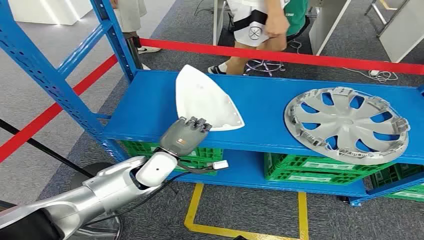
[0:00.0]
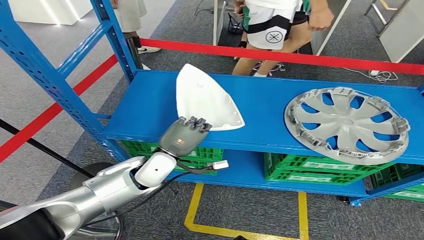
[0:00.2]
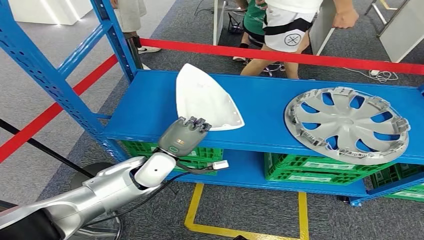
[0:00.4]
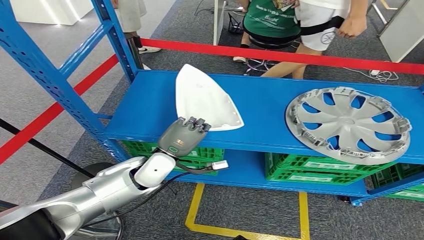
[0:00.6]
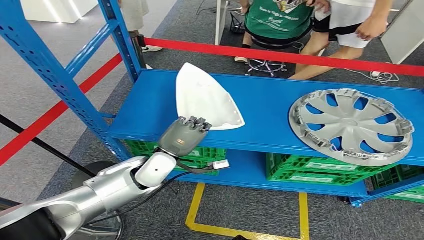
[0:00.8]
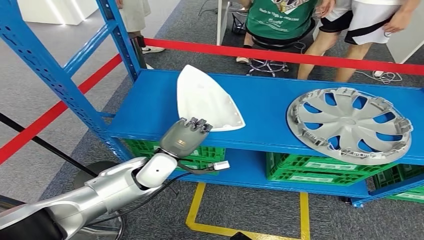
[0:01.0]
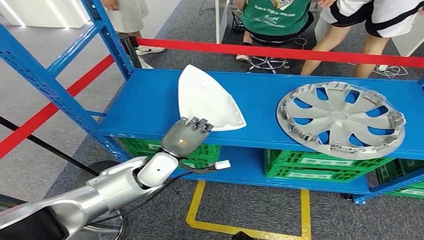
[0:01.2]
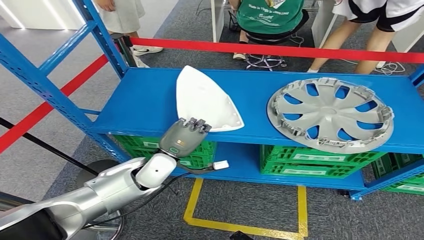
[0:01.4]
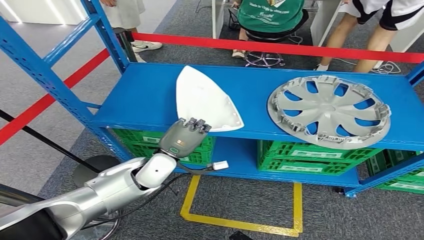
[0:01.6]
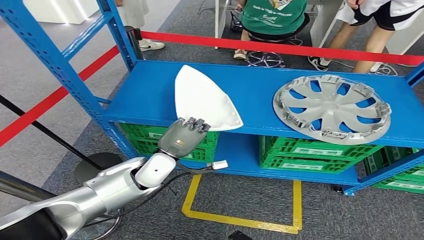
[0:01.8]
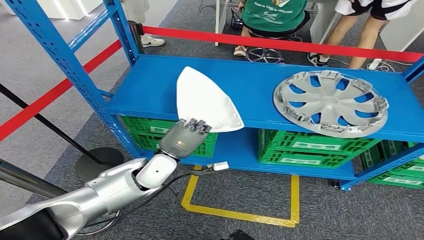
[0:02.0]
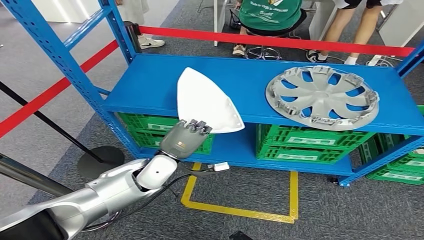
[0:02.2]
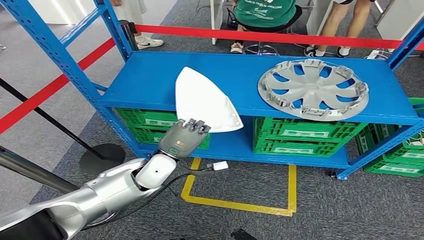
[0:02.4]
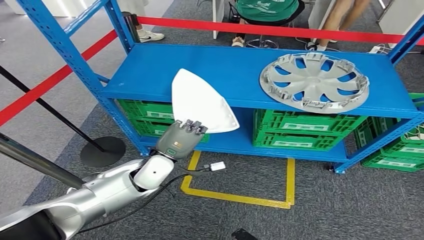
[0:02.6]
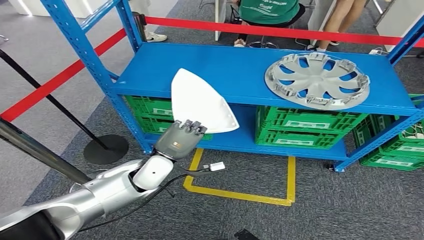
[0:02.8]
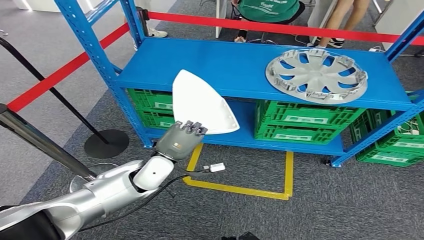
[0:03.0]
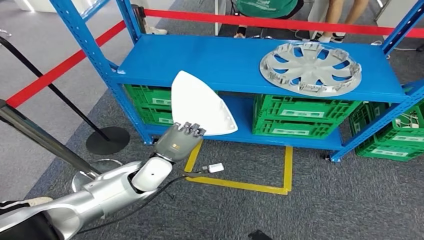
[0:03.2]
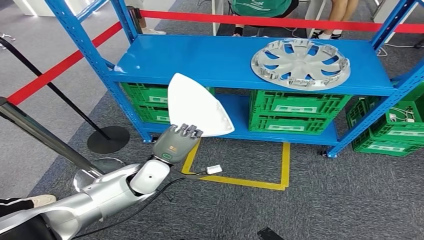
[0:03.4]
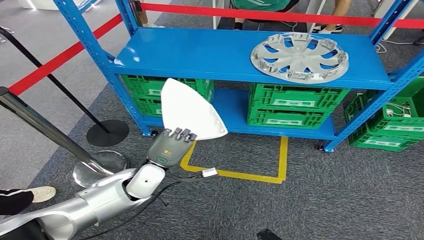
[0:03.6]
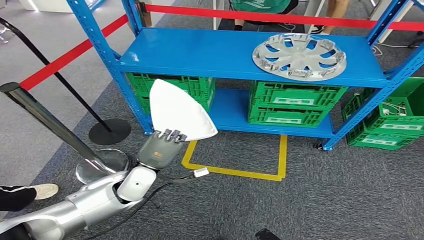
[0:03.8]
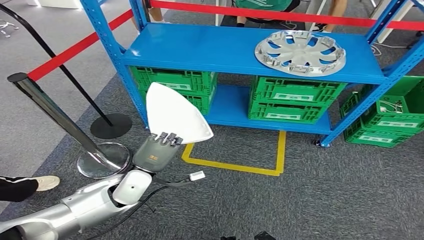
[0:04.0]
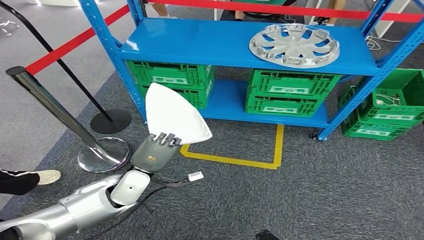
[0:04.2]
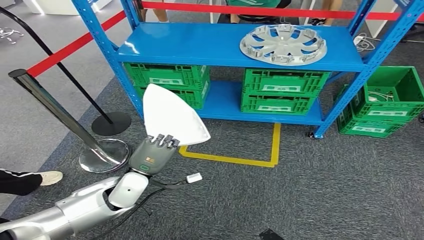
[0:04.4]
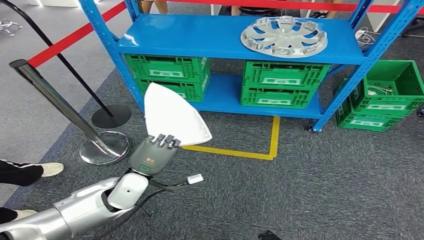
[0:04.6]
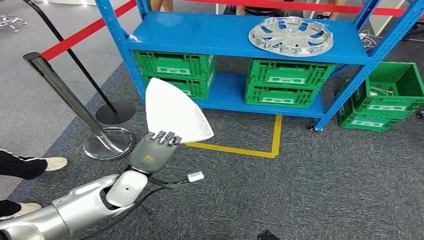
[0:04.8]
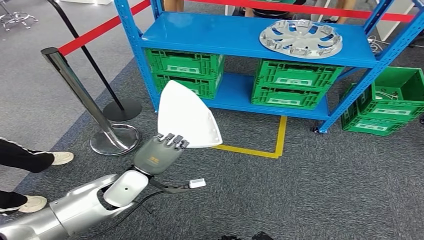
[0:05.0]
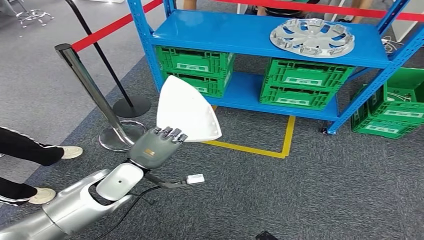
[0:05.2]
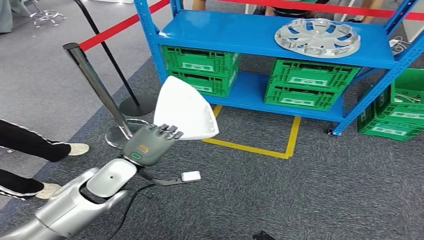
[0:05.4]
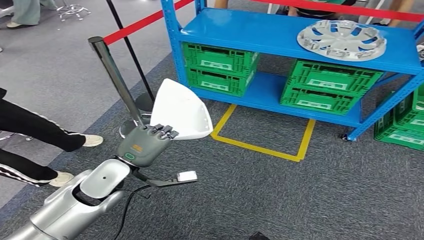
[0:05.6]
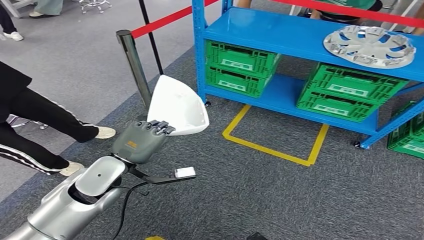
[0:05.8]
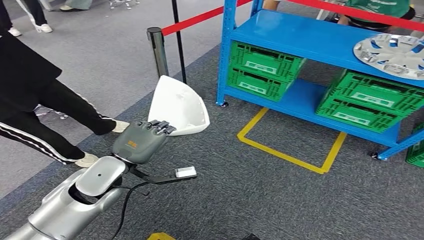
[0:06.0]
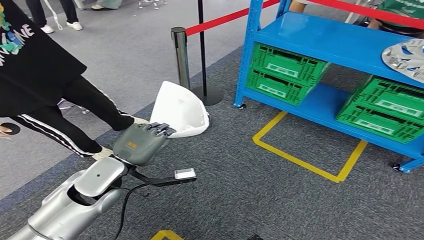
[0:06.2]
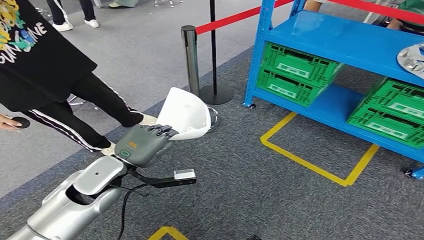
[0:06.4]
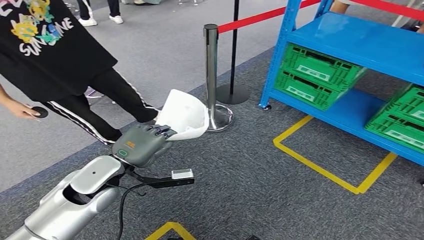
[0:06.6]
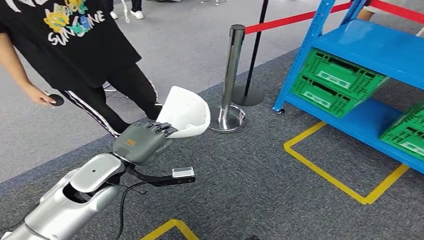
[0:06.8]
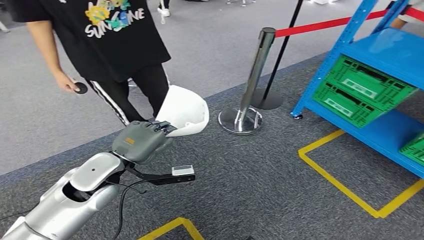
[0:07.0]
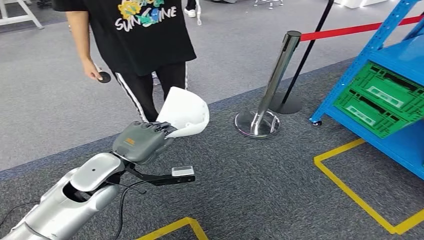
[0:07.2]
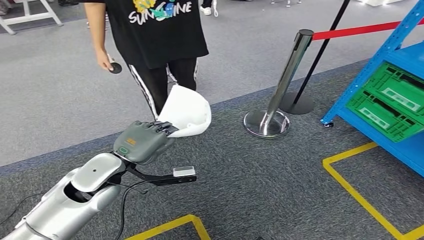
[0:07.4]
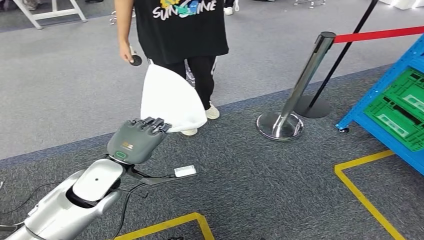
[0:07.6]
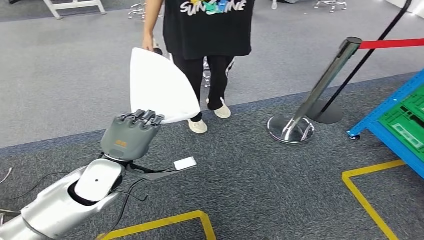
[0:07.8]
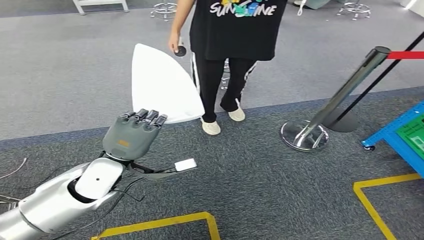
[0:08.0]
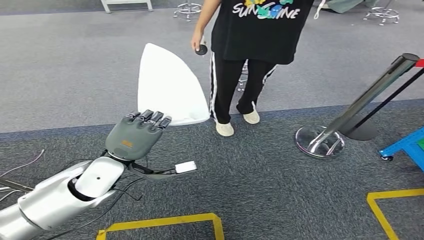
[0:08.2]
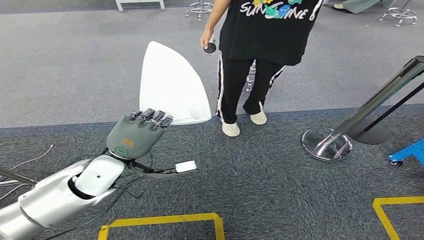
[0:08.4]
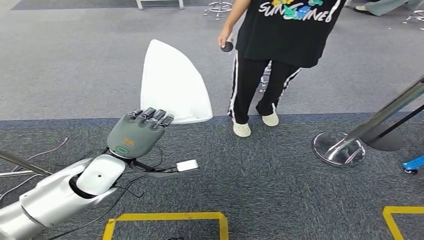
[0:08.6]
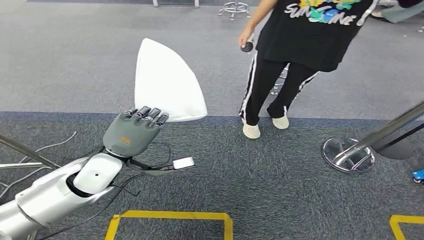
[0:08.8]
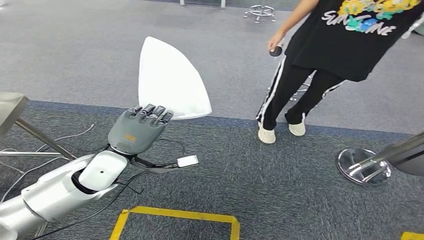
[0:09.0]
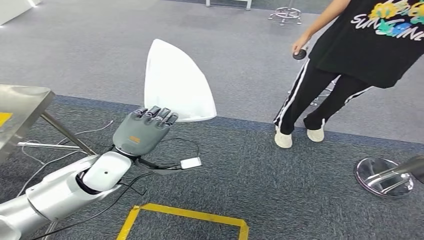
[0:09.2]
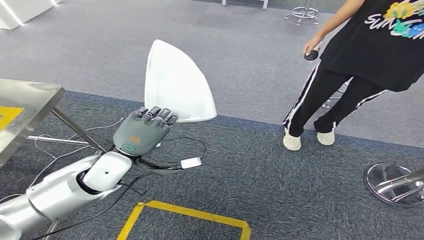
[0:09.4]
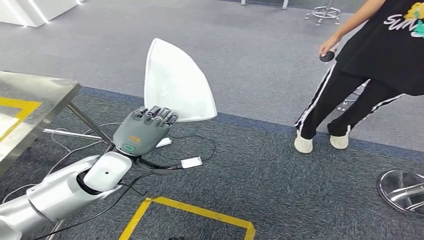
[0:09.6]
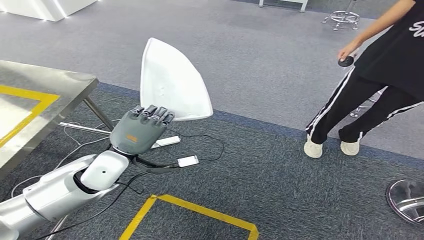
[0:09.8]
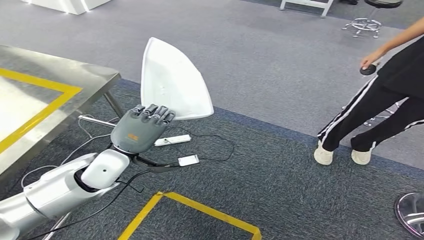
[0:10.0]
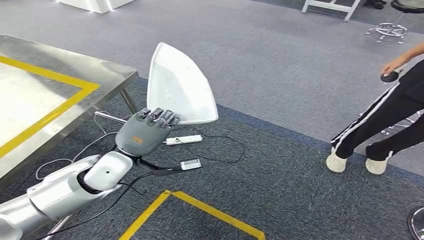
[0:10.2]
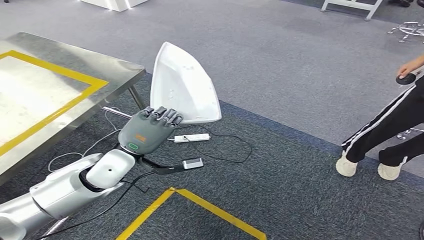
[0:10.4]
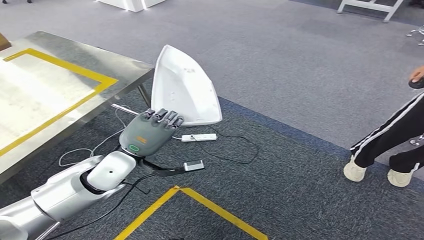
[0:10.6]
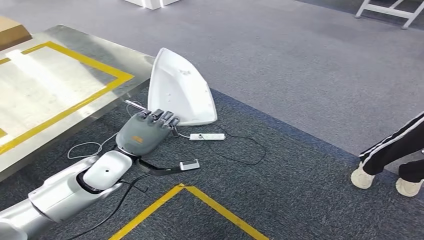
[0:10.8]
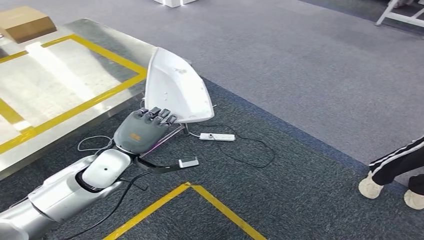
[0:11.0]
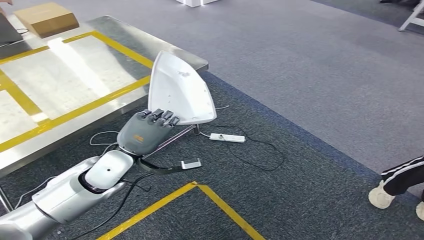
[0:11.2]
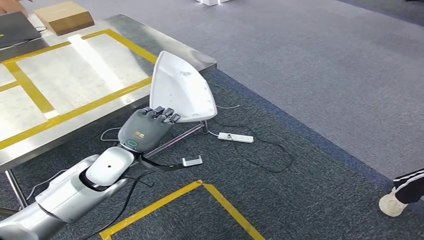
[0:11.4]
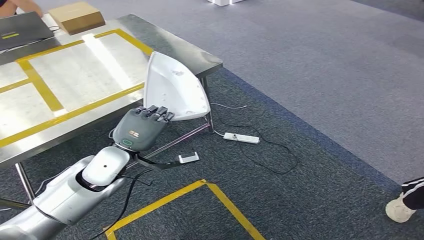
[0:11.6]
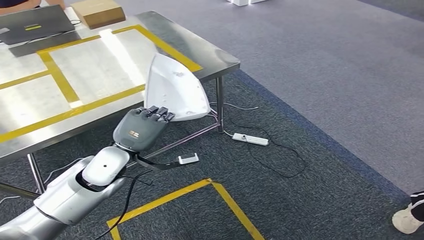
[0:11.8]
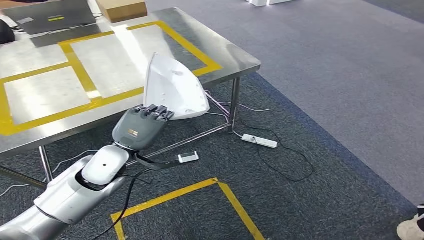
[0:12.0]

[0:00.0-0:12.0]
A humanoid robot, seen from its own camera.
Step, 0:00.0 to 0:02.8: Pick up the small component from the shelf.

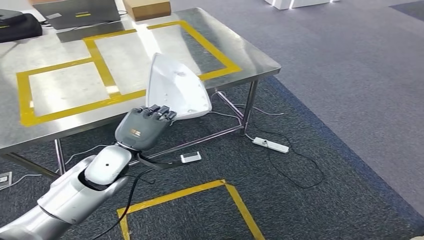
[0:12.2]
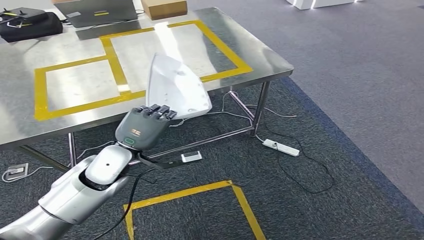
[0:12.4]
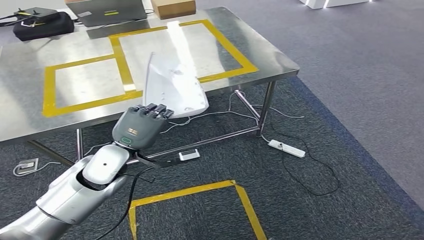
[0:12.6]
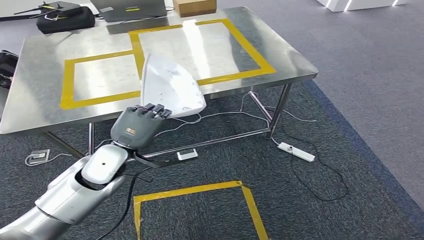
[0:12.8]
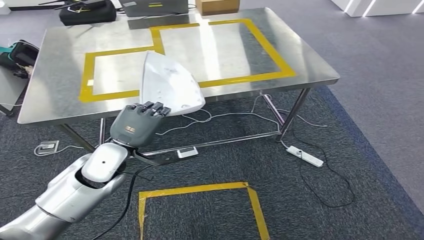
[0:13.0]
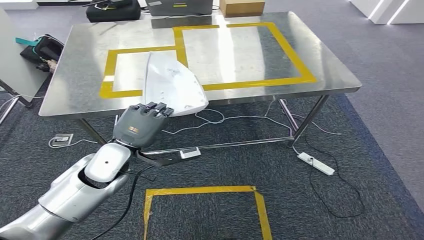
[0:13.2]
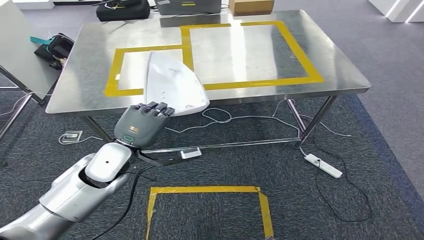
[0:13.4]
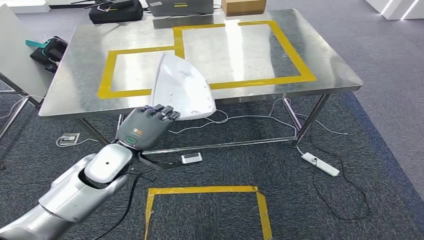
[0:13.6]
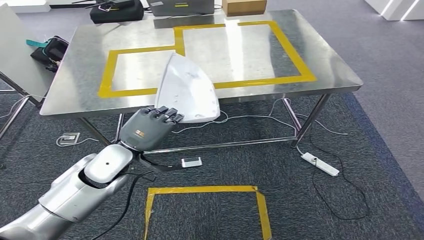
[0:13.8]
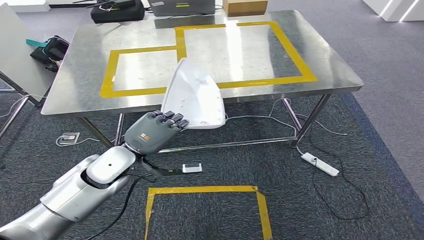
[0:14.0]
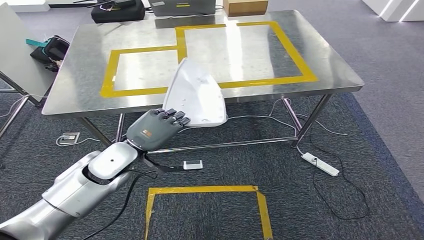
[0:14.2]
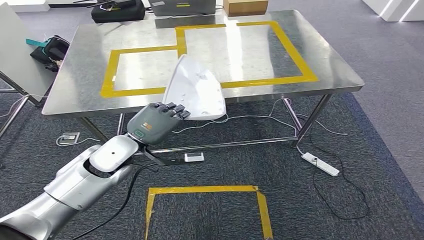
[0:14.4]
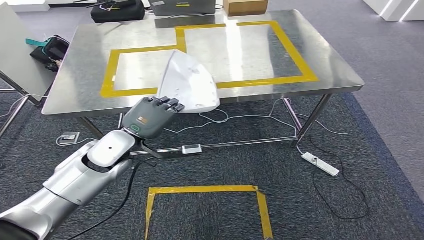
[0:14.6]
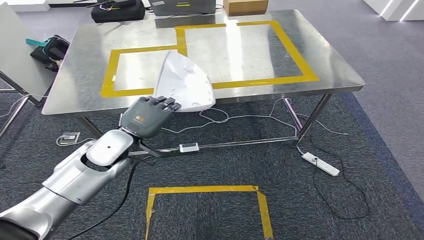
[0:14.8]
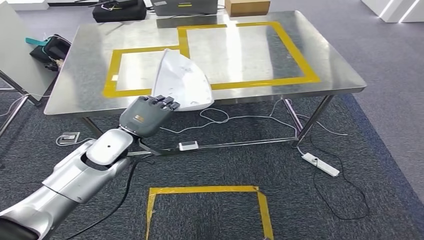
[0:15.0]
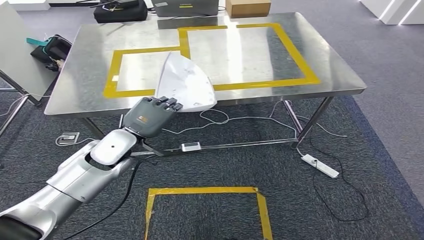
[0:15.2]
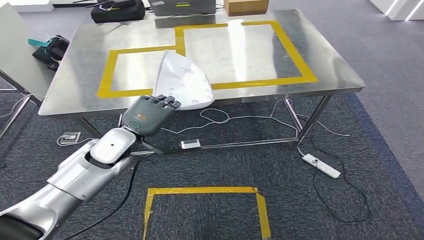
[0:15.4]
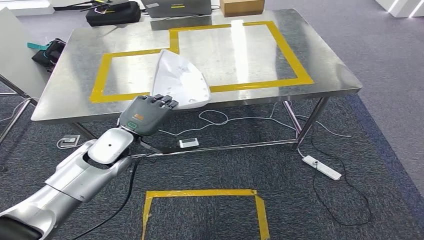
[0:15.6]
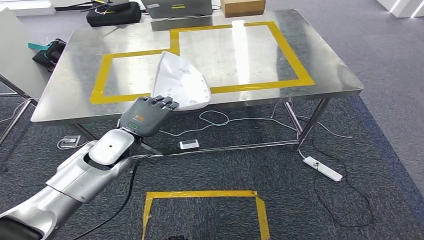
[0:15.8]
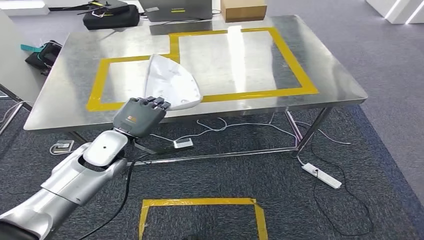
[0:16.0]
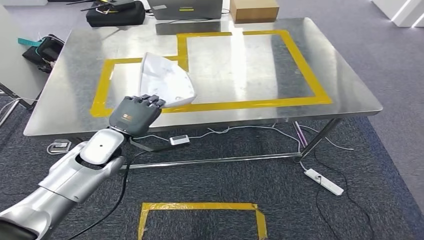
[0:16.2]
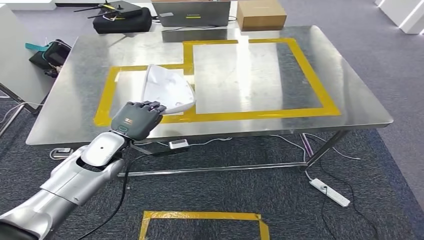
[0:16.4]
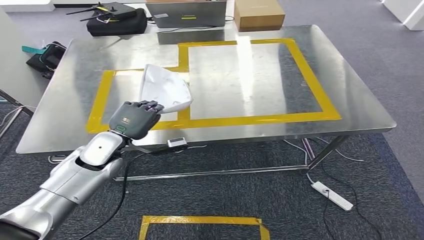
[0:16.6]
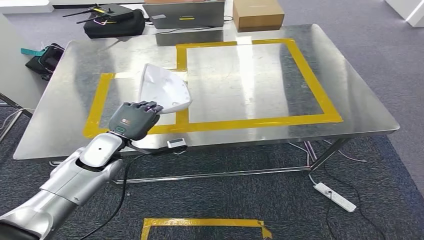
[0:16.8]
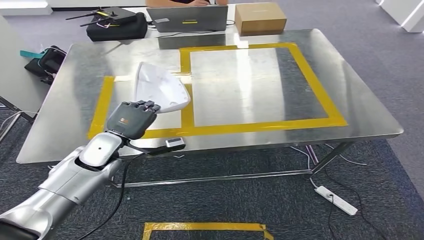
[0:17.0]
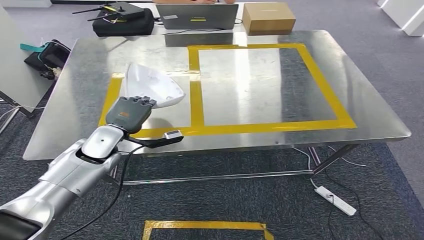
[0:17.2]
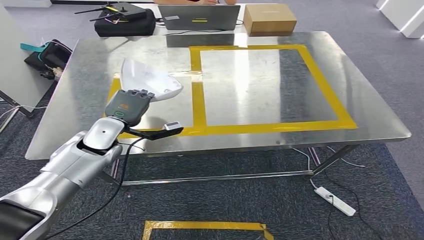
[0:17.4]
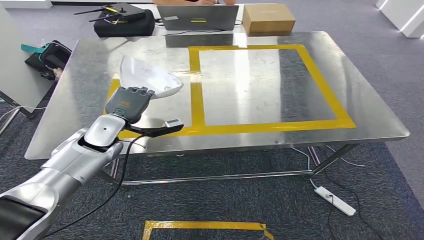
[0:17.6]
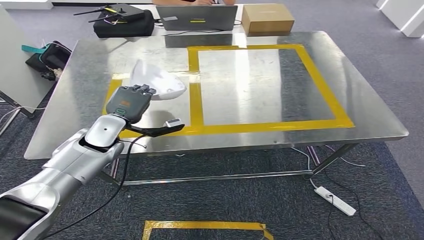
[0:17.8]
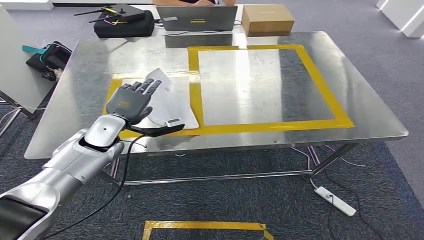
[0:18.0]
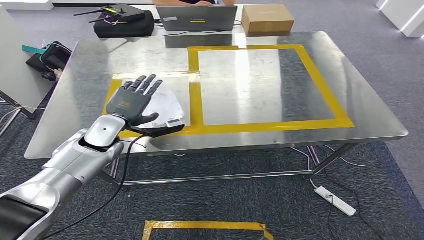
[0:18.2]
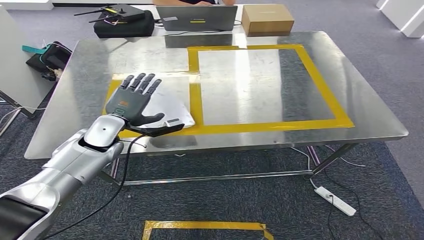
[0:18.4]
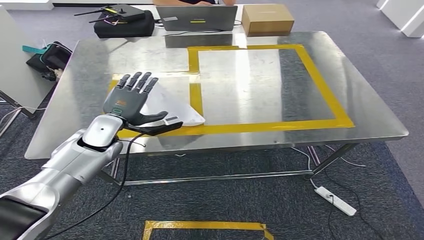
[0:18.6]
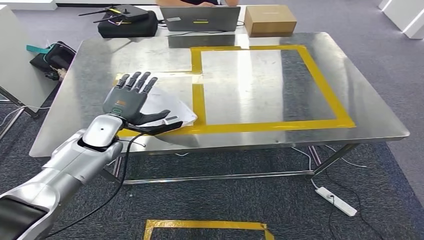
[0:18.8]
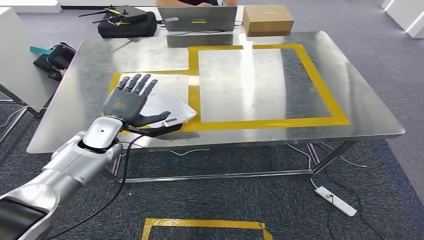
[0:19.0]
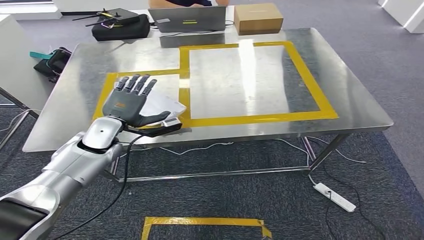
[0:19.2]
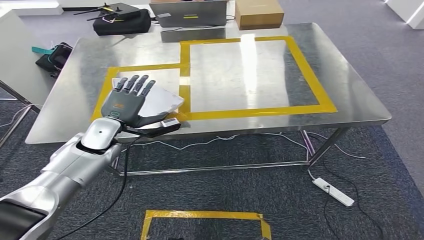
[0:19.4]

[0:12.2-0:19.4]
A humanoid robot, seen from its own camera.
Step, 0:12.2 to 0:16.6: Move the small component to the workbench.
0:13.6 to 0:15.0: The hands make only small movements.
